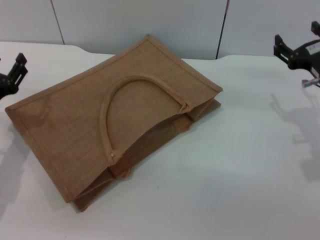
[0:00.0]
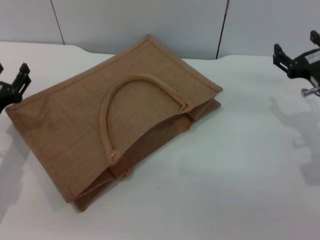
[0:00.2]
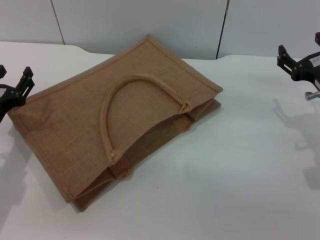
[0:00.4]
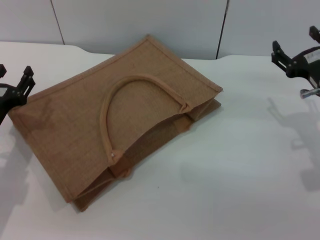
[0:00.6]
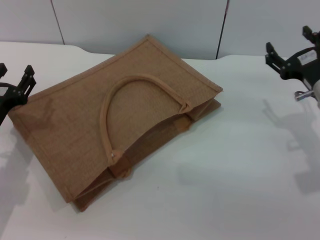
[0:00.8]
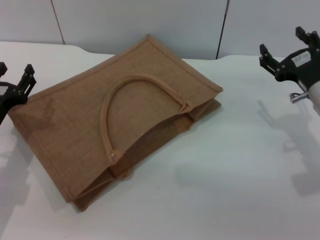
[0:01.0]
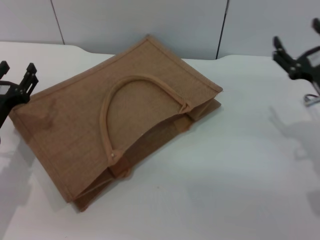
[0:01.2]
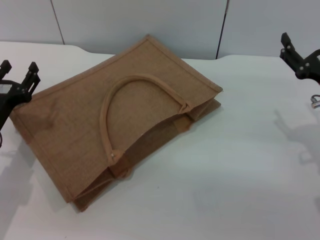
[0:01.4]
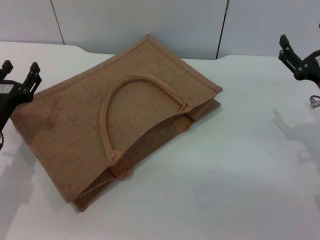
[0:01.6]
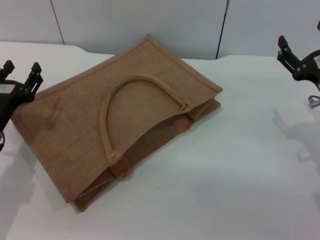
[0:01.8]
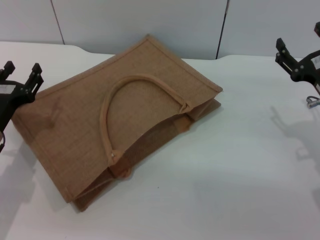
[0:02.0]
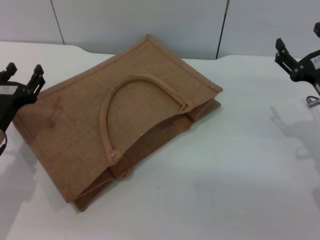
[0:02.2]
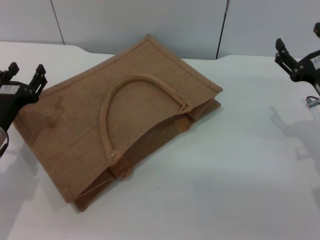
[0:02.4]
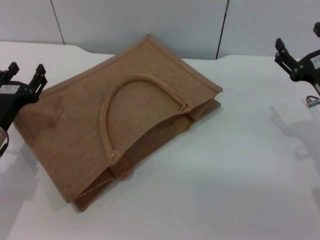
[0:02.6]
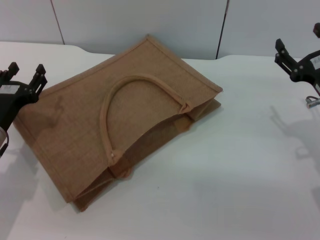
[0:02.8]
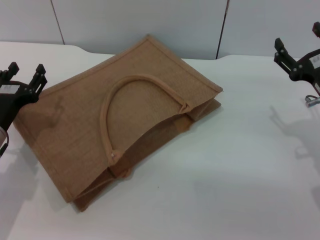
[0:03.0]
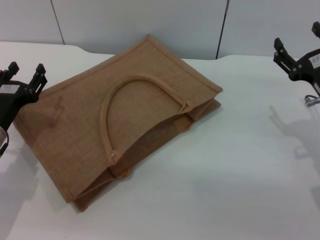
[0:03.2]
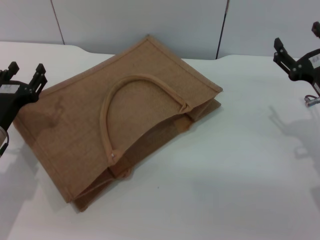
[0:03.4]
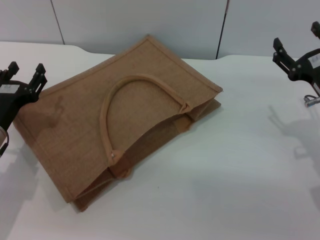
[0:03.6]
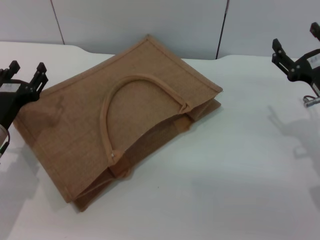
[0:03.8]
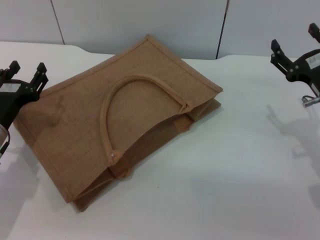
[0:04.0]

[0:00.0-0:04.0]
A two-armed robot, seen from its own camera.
Task of the whole recording: pick up the peach from the table and place it in the brown handbag.
0:01.4 to 0:02.6: The two grippers keep their place.
0:02.6 to 0:04.0: Both grippers stay put.

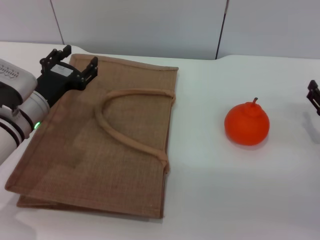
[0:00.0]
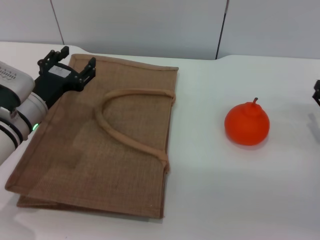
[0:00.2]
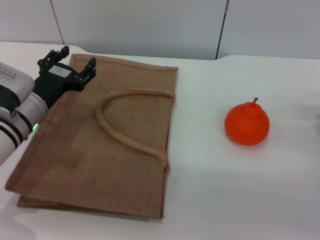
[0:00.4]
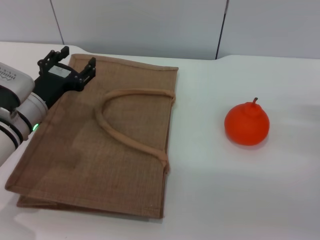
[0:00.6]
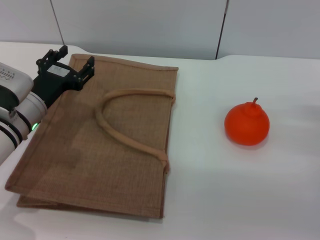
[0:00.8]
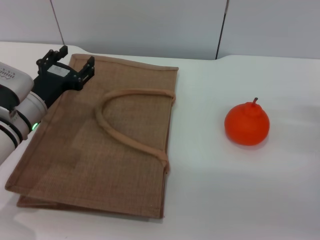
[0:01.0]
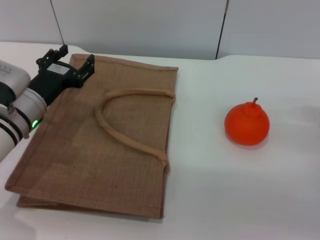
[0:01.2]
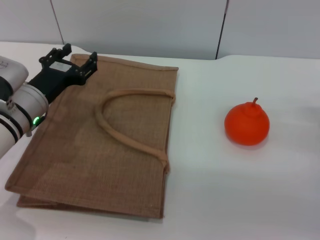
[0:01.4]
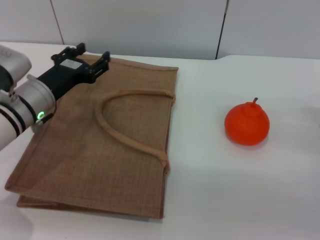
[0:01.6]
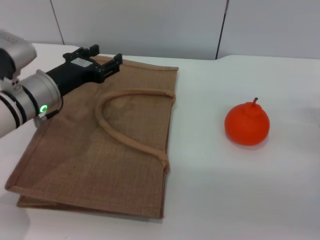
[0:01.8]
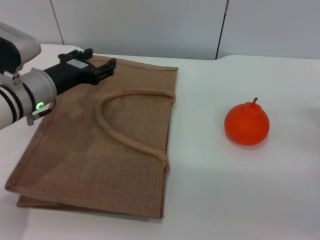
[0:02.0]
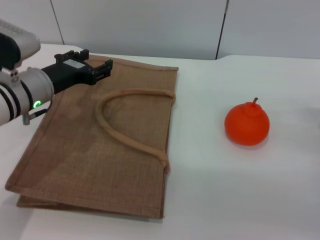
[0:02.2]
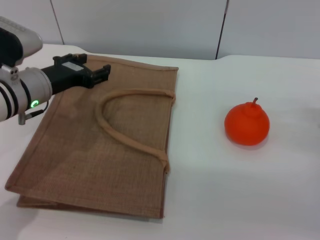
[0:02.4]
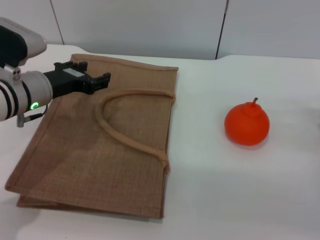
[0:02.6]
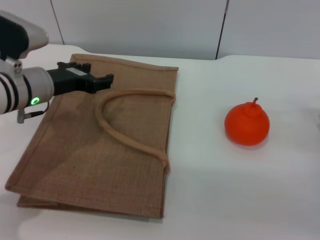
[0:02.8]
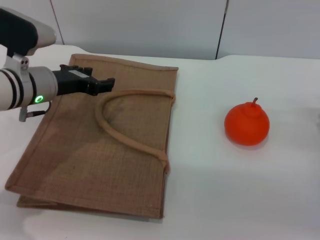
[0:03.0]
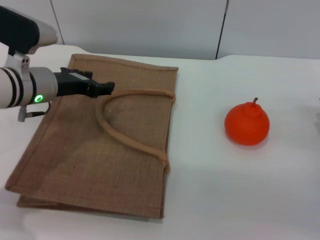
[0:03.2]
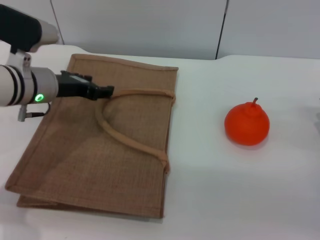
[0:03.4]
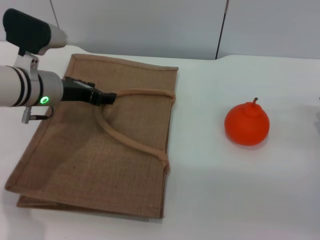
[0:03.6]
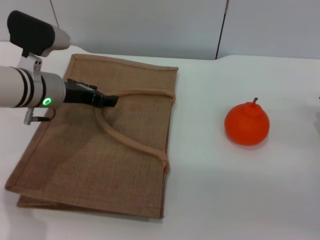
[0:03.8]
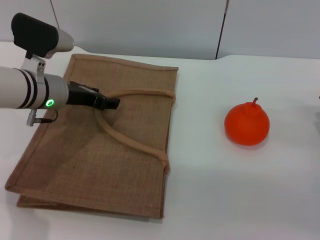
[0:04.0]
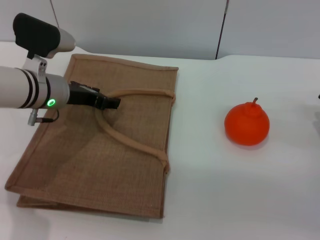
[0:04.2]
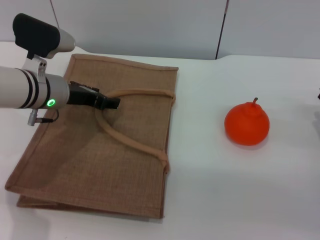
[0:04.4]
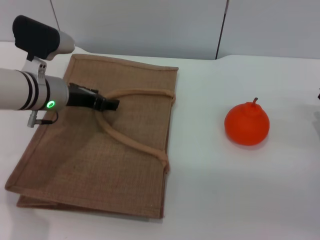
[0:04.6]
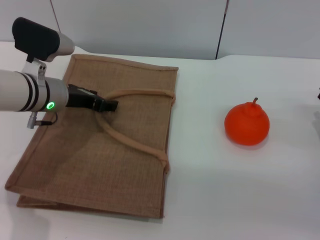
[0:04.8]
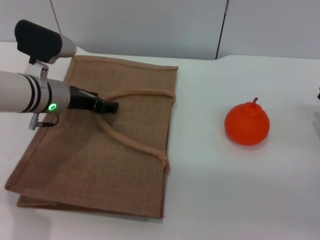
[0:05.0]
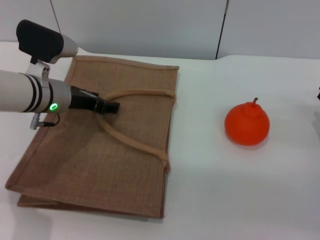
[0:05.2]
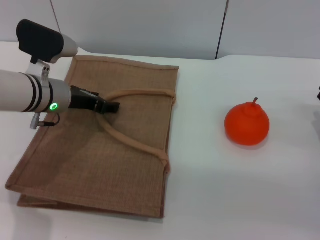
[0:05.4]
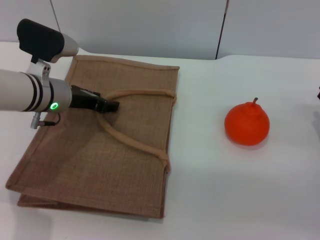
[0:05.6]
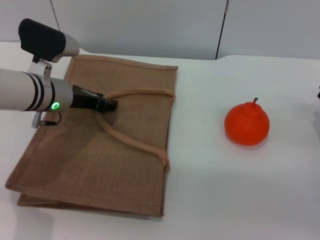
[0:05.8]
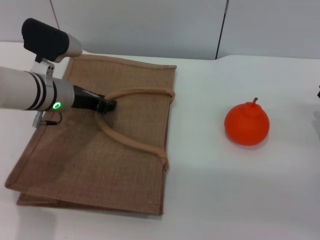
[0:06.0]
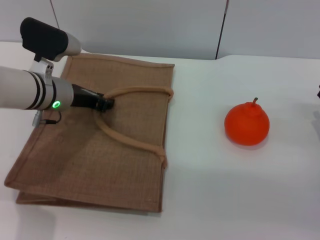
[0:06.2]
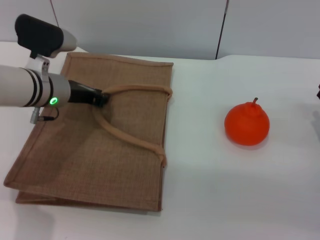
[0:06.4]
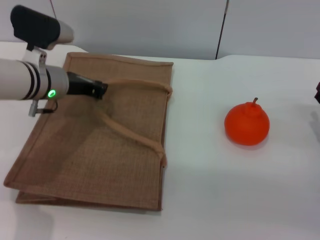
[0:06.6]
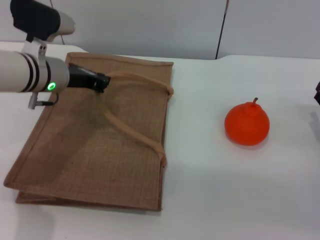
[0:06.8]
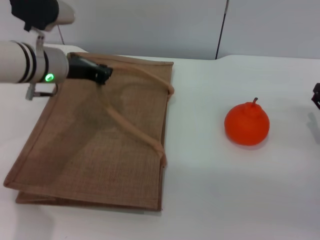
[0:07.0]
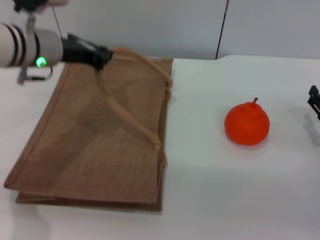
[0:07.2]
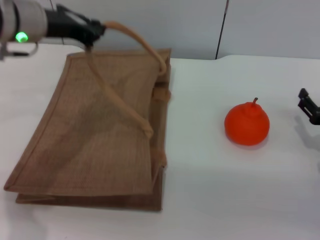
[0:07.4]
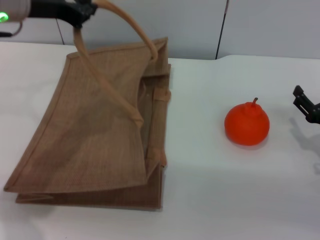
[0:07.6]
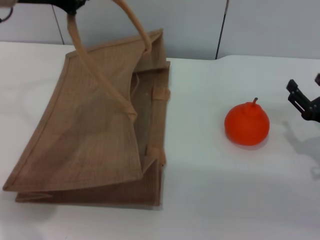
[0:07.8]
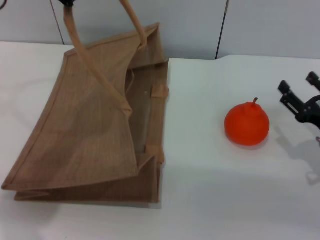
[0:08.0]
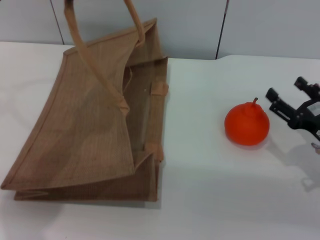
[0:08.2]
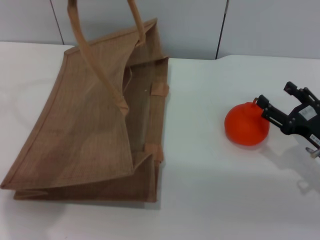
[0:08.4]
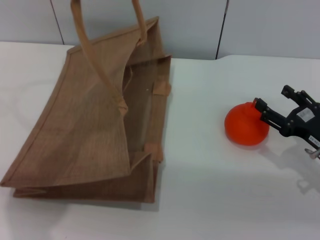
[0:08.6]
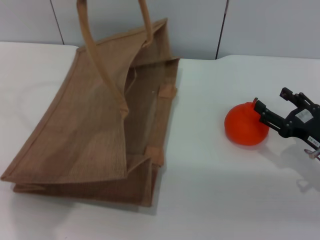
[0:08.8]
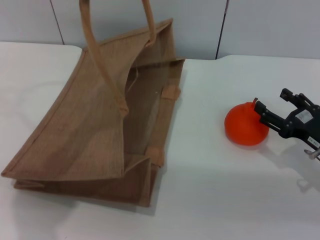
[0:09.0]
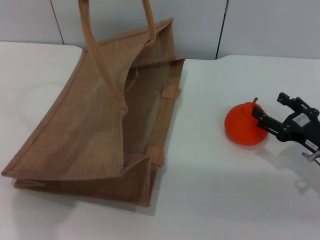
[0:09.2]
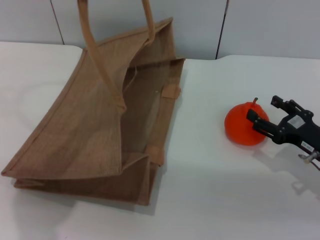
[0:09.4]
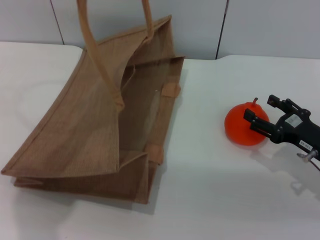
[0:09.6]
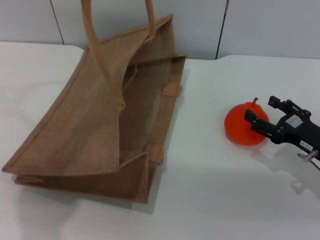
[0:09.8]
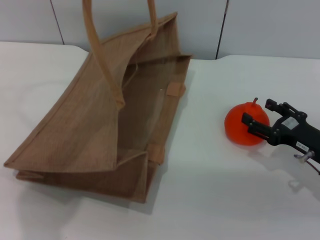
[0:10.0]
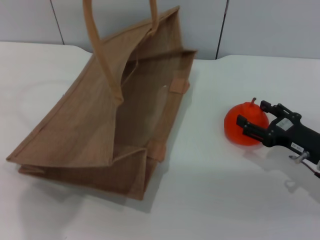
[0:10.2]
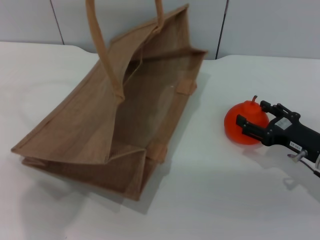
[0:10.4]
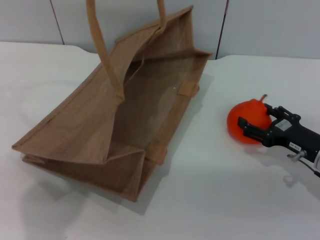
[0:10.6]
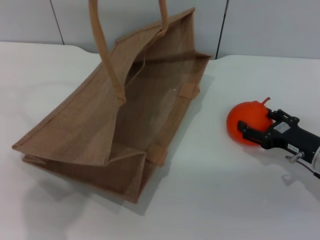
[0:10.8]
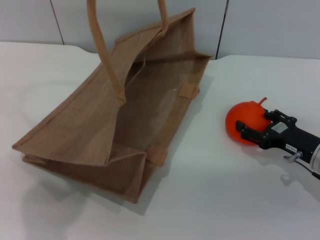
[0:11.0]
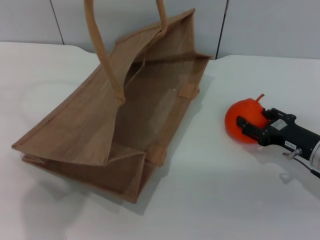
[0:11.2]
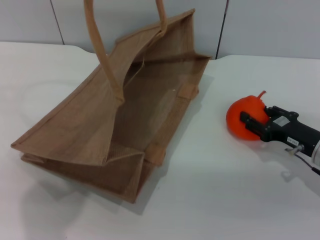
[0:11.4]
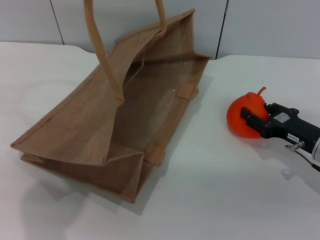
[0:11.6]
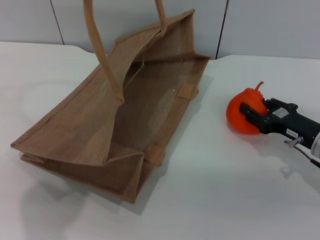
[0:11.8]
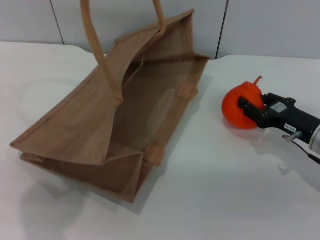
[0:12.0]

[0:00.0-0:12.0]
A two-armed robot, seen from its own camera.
Task of the whole recording: pick up the orange from the table and place it in the brown handbag.
Step, 0:00.0 to 0:07.4: Lift the woven bag with the left gripper to open it.
0:00.0 to 0:01.6: The grippers make only small movements.
0:03.0 to 0:04.4: The grippers stay close to where they were, moving slightly.
0:04.4 to 0:06.0: The two grippers keep their place.
0:06.0 to 0:07.6: The left gripper is displaced upward by roughly 15 cm, and closes.
0:07.6 to 0:09.0: The left gripper heads upward, covering about 5 cm.
0:09.0 to 0:10.4: The grippers stay close to where they were, moving slightly.
0:10.4 to 0:12.0: The right gripper closes its fingers.

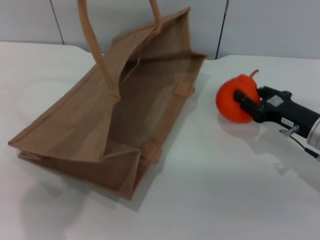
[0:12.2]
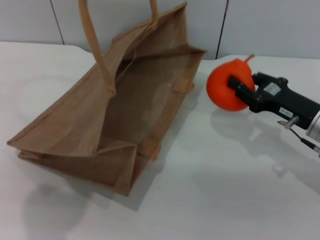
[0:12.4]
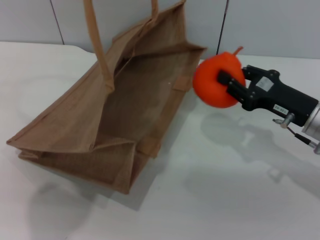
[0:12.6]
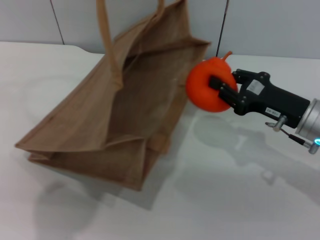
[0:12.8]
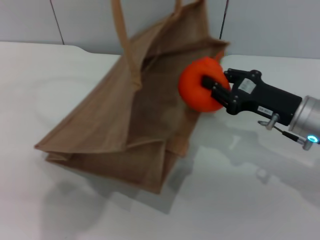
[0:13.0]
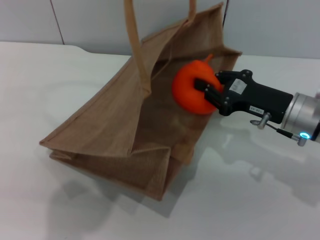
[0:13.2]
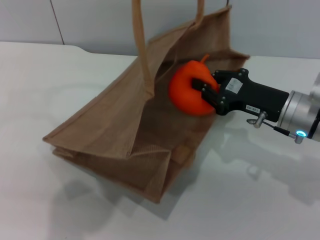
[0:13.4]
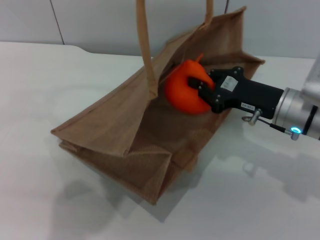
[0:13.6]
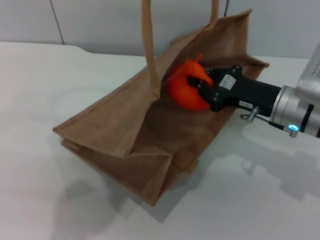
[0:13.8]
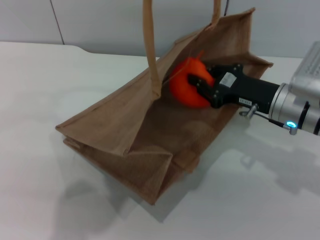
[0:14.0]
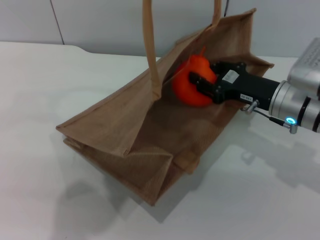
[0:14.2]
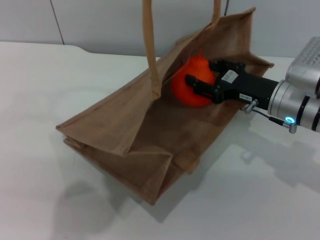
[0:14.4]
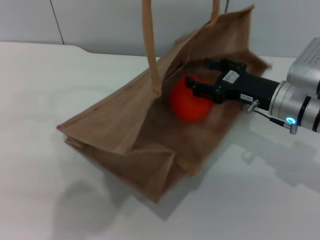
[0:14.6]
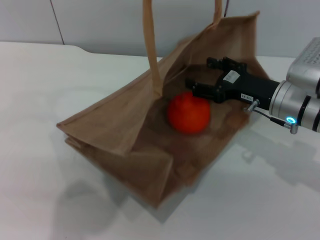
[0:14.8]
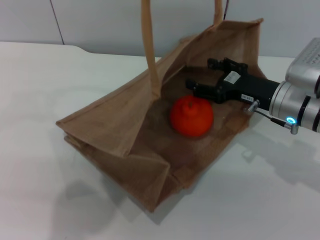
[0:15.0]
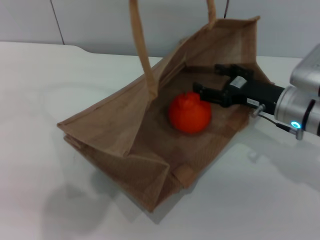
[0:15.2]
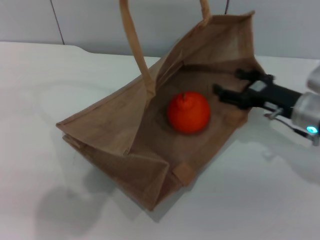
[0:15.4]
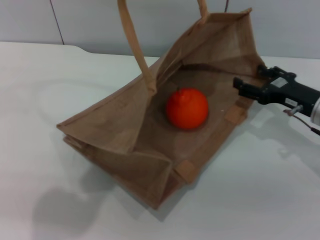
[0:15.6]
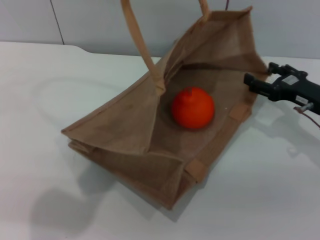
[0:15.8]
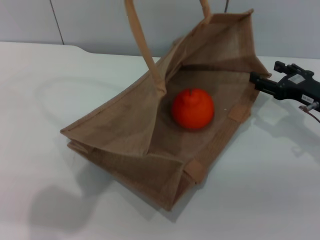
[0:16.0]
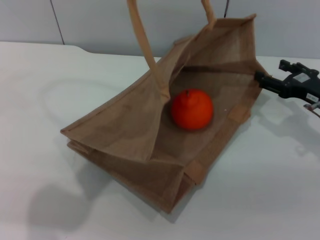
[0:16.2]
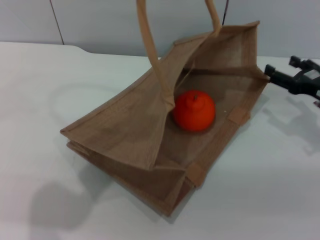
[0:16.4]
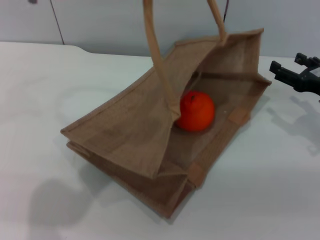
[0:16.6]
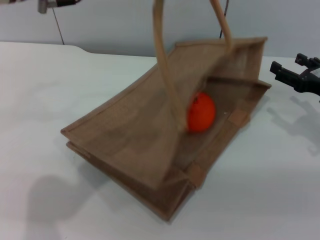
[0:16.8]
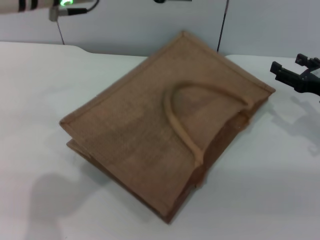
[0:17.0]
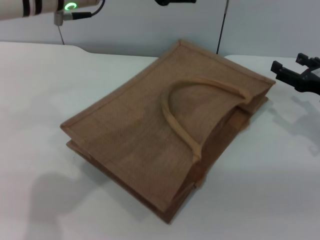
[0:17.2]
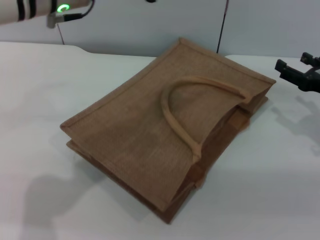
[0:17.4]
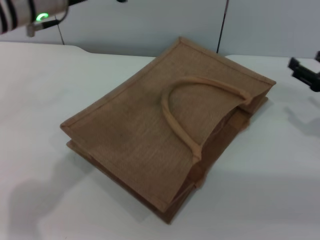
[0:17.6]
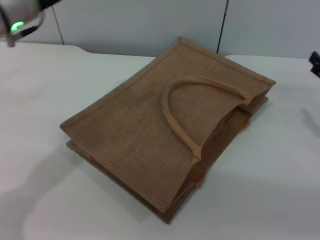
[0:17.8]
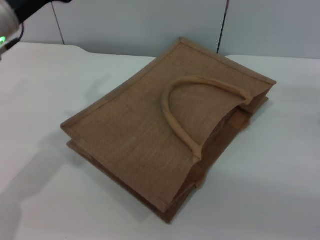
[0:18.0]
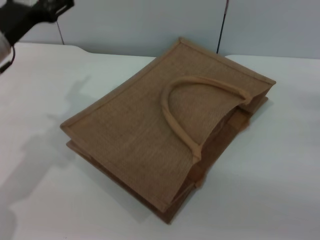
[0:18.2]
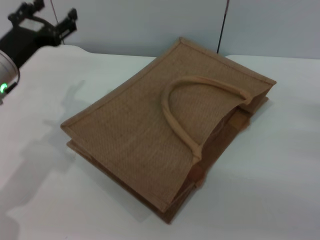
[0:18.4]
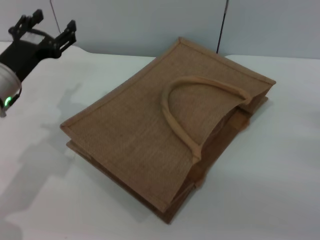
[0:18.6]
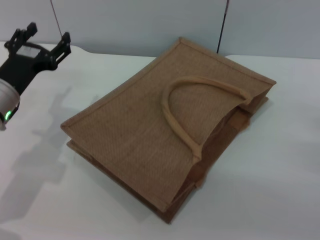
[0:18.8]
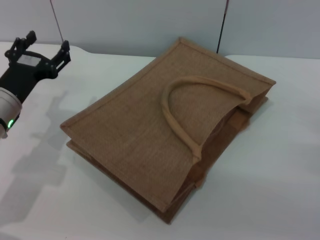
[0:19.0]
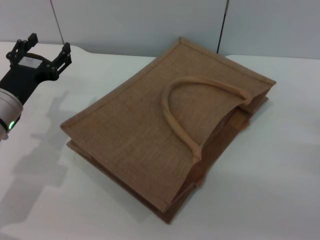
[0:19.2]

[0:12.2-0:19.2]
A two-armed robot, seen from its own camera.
Task of the whole recording: pick up the orange from the table and place it in the brown handbag.
Step, 0:12.6 to 0:15.4: Place the orange into the woven bag with the right gripper.
Step, 0:15.6 to 0:17.2: Lower the woven bag with the left gripper to close it.
0:12.2 to 0:13.6: The right gripper is displaced to the left by approximately 5 cm, and closes up, while the left gripper heads to the right, covering about 5 cm.
0:13.6 to 0:15.0: The right gripper opens up.
0:15.0 to 0:16.4: The left gripper moves some 5 cm, and opens. The right gripper is displaced to the right by about 10 cm.
0:16.4 to 0:17.8: The left gripper heads downward and to the left, covering about 10 cm.
0:17.8 to 0:19.2: The left gripper shifts approximately 15 cm downward.
